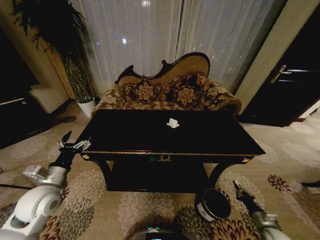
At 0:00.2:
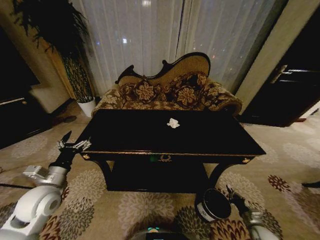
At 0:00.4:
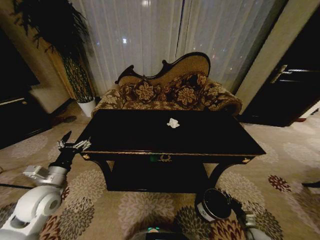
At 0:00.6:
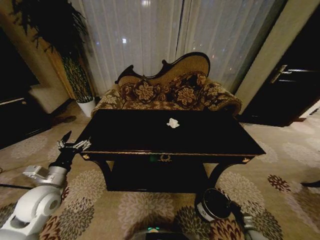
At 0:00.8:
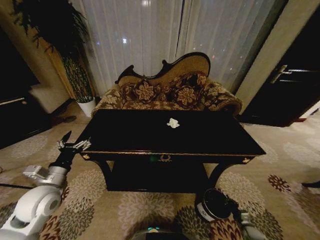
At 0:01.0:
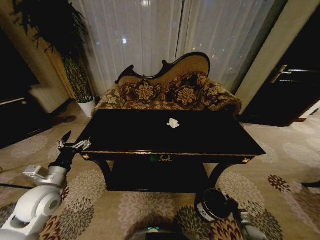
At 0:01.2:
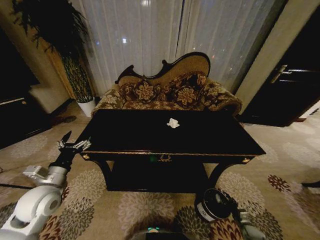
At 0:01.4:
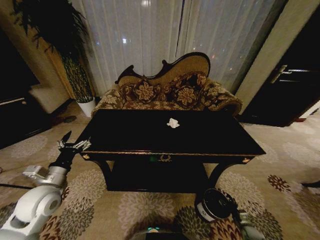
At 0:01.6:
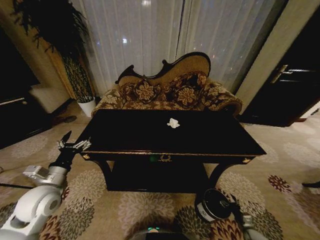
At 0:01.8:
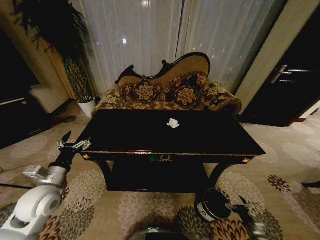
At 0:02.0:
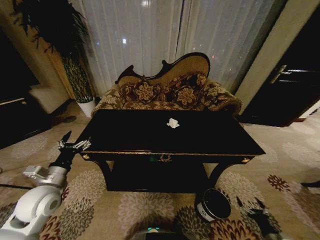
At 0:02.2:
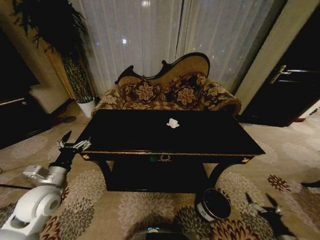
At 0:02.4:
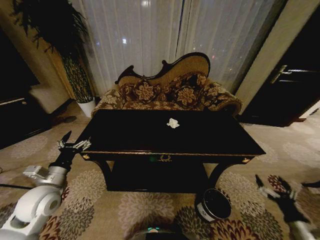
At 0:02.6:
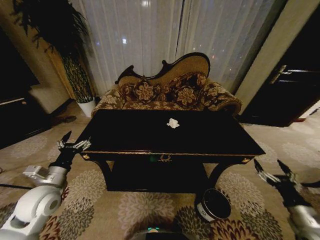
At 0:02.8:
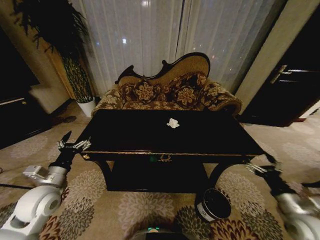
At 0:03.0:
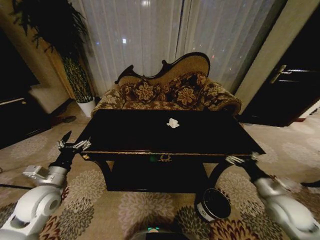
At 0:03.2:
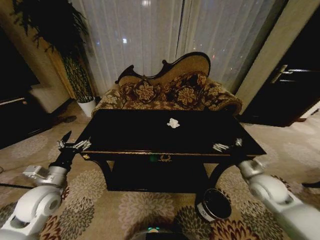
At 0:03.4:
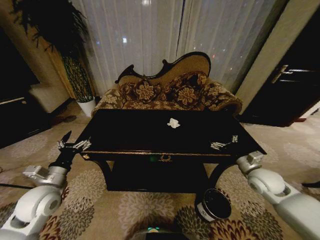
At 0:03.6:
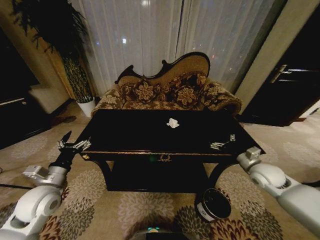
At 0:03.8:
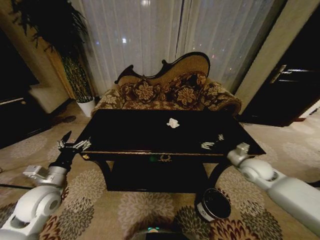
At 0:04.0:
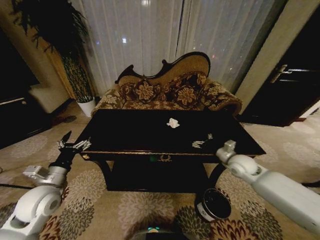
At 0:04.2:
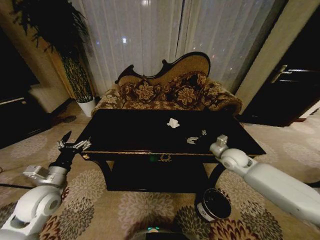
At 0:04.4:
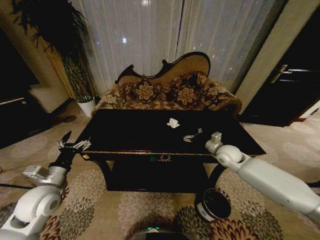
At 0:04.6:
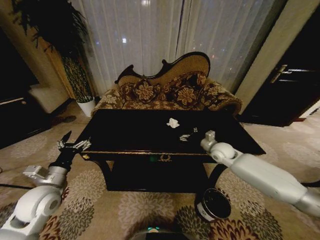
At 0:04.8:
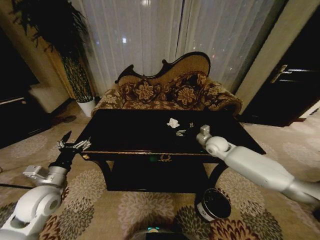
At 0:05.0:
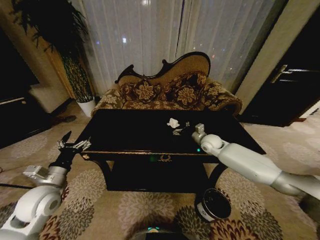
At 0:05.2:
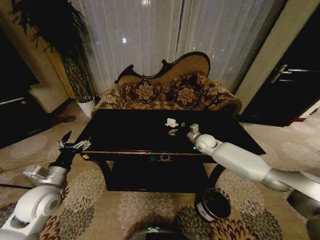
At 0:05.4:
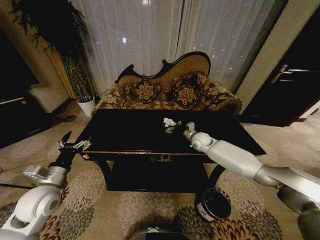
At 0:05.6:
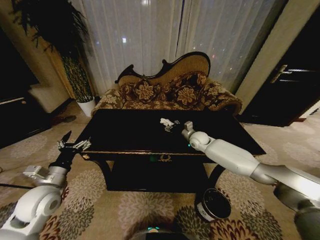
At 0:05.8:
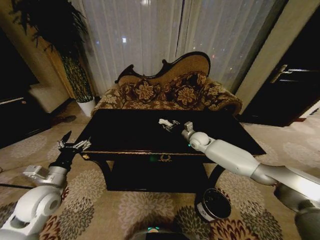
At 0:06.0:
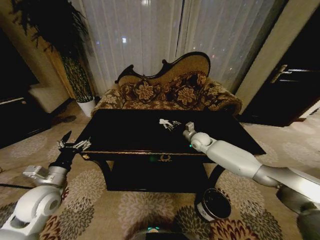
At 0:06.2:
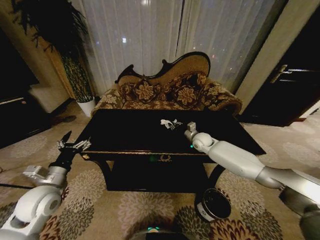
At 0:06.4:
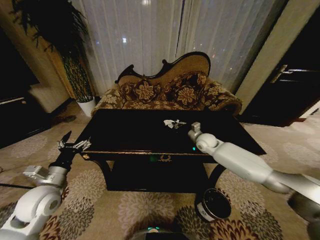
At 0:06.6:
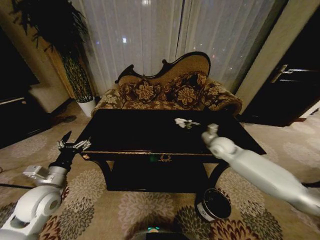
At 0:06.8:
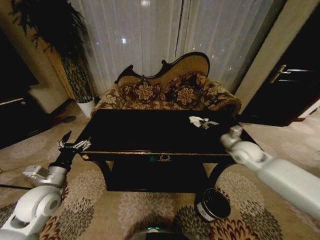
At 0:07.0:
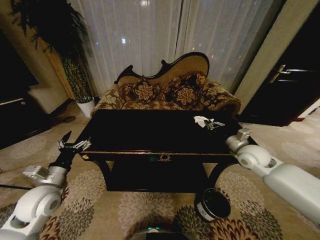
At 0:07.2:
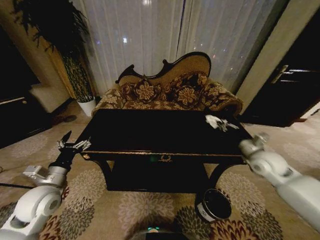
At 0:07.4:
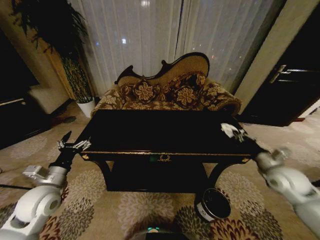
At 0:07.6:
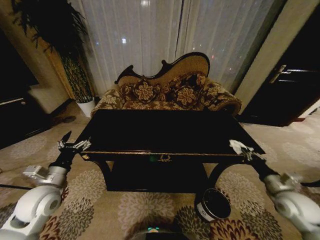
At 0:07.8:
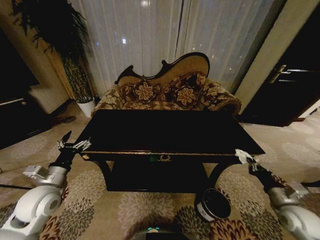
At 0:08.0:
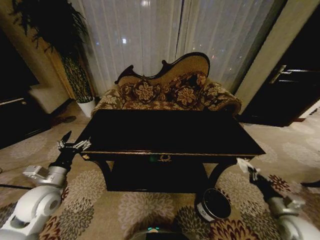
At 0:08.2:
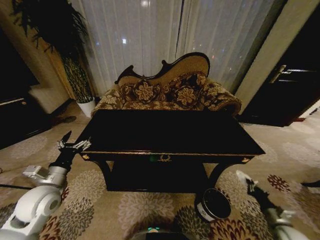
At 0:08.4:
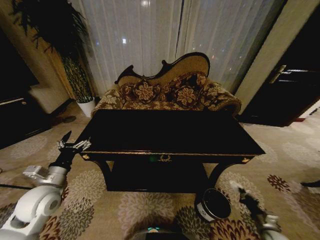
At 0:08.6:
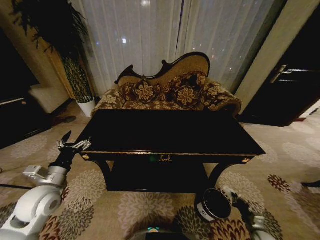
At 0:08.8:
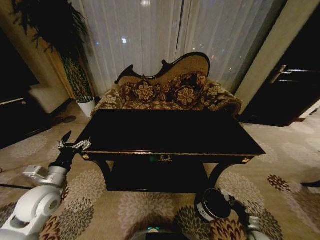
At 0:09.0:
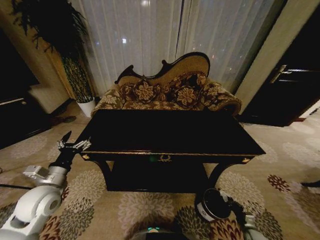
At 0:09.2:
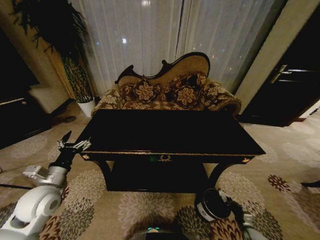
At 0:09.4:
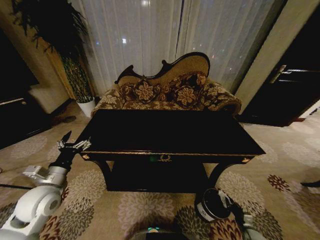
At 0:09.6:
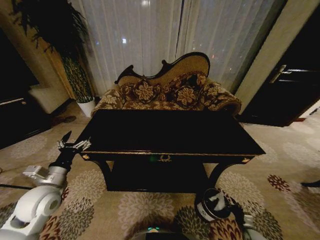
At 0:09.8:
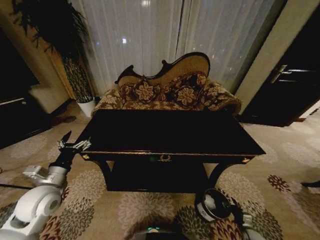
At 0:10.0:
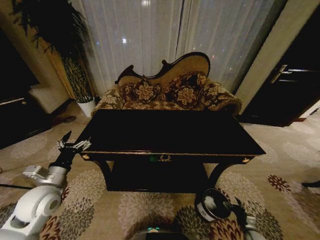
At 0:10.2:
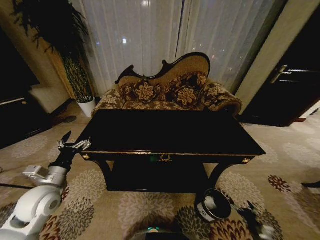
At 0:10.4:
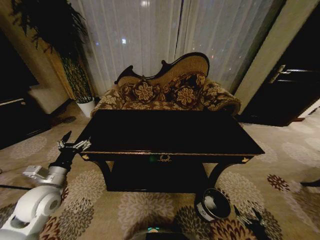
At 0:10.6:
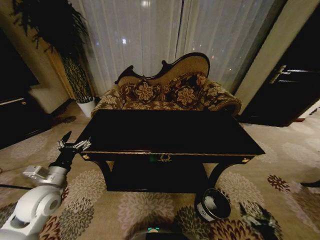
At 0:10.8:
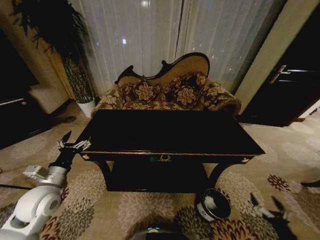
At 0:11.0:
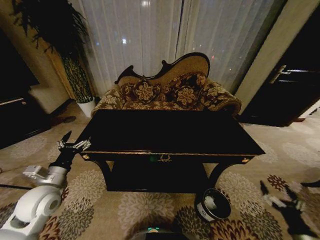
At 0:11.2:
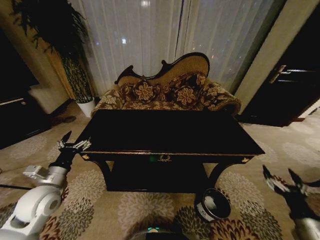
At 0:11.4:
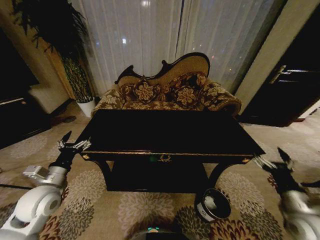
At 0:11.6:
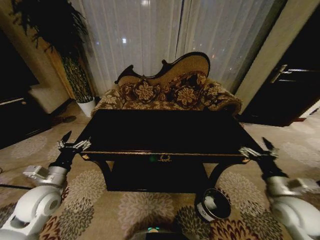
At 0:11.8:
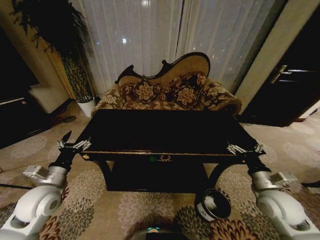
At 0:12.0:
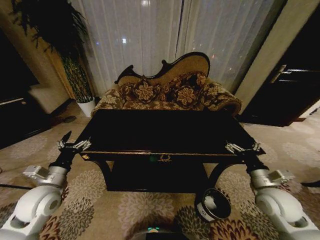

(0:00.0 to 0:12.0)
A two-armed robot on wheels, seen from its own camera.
Task of the whole recording: Move to the front of the table and place the trash on the table into the trash bin.
0:00.0 - 0:01.6: The right gripper is displaced downward by some 15 cm, and opens.
0:01.6 - 0:03.0: The right gripper moves upward, about 35 cm.
0:03.0 - 0:04.4: The right gripper moves forward and to the left, some 25 cm.
0:04.4 - 0:06.0: The right gripper shifts approximately 15 cm forward and to the left, and closes.
0:06.0 - 0:07.6: The right gripper goes some 40 cm backward and to the right.
0:07.6 - 0:09.0: The right gripper goes some 30 cm downward.
0:09.0 - 0:10.4: The right gripper moves backward and upward, about 15 cm, and opens up.
0:10.4 - 0:12.0: The right gripper travels upward and forward by roughly 35 cm.
